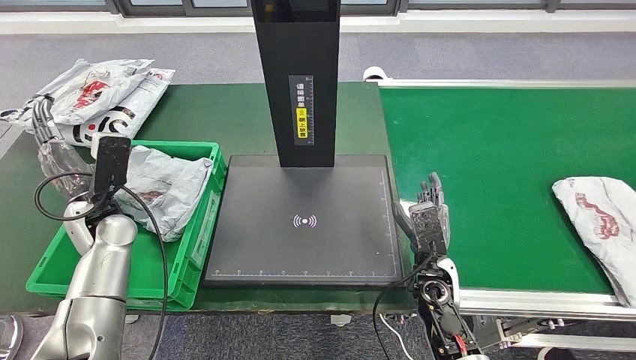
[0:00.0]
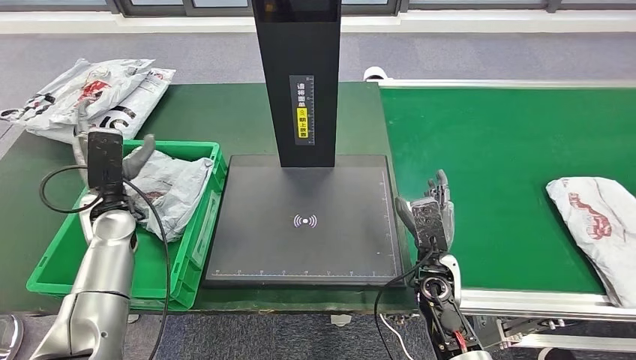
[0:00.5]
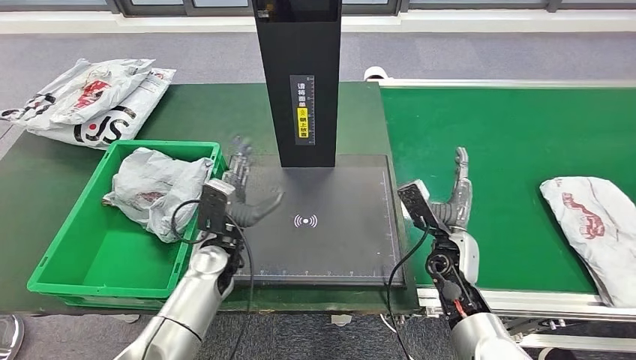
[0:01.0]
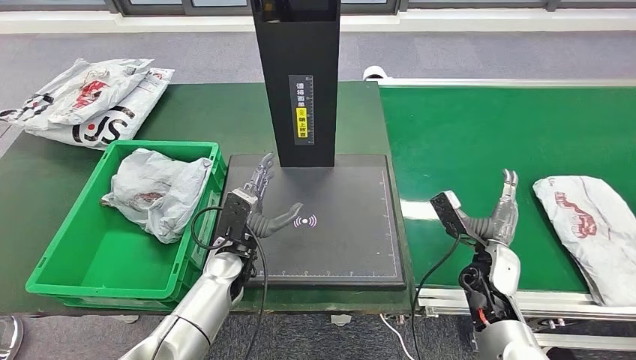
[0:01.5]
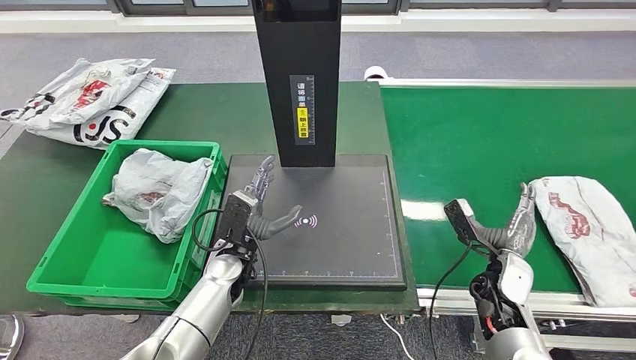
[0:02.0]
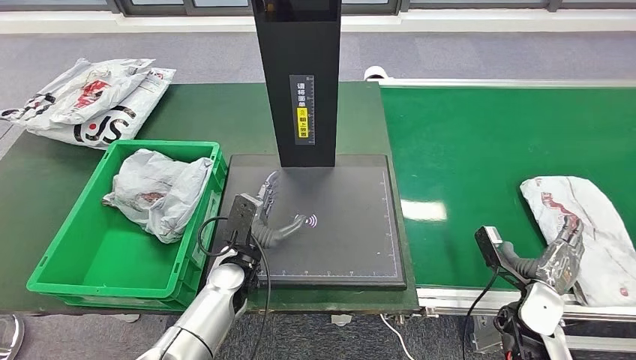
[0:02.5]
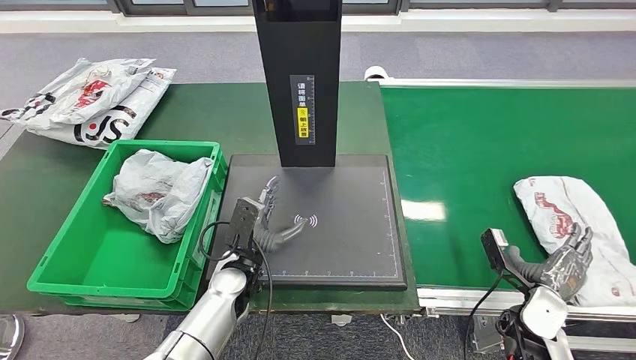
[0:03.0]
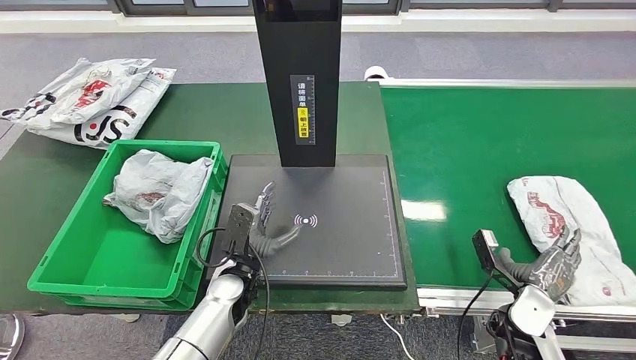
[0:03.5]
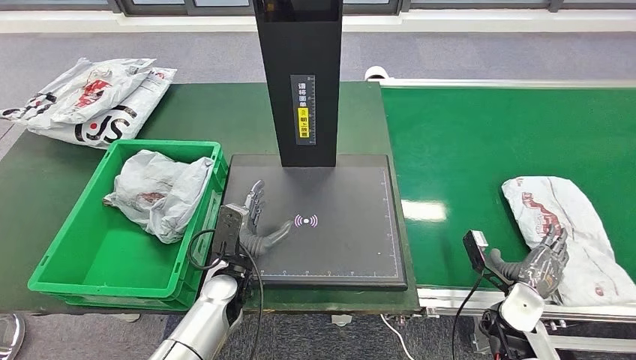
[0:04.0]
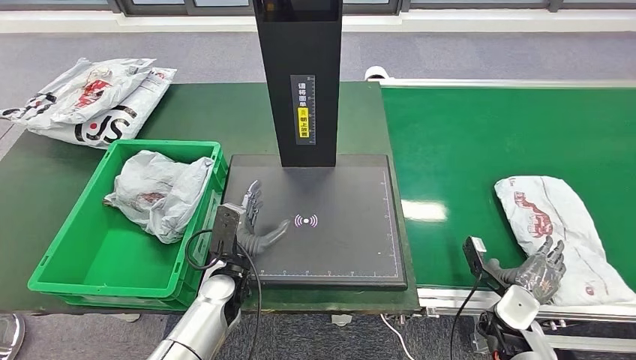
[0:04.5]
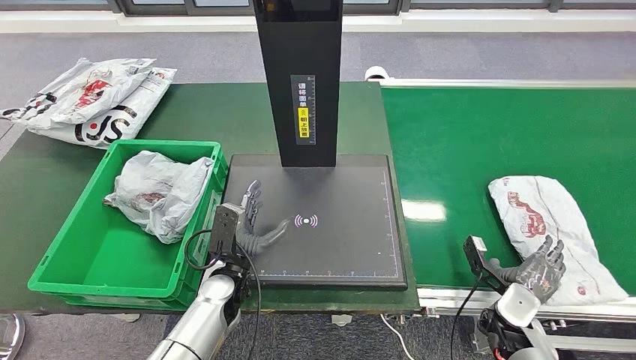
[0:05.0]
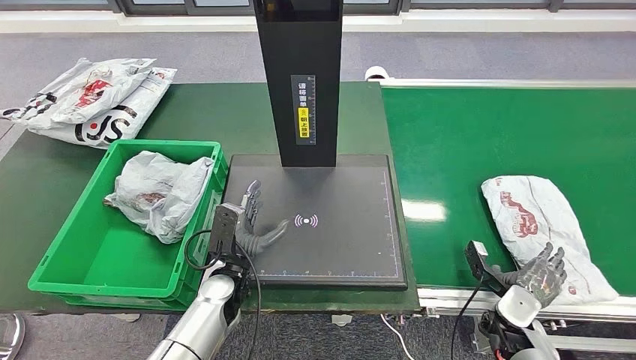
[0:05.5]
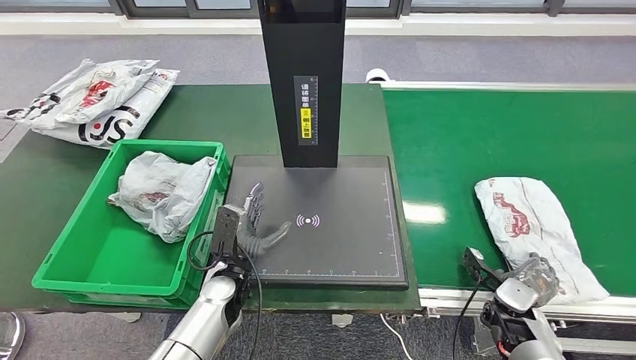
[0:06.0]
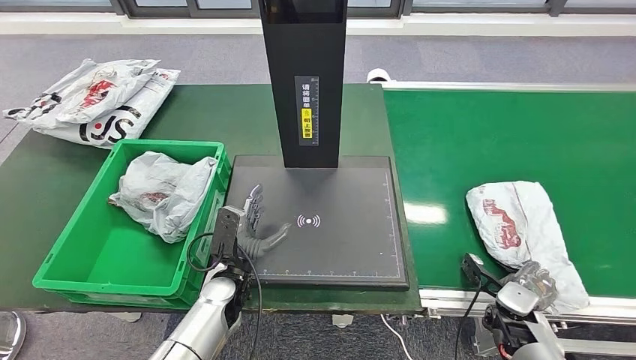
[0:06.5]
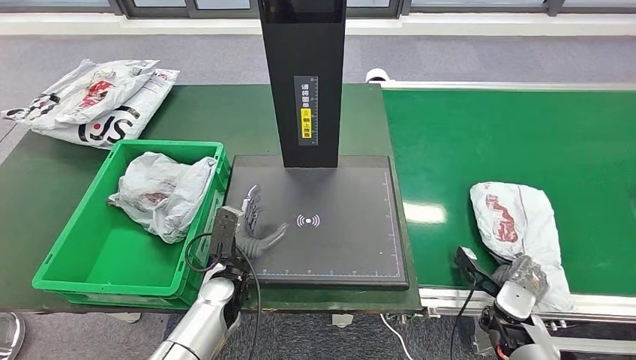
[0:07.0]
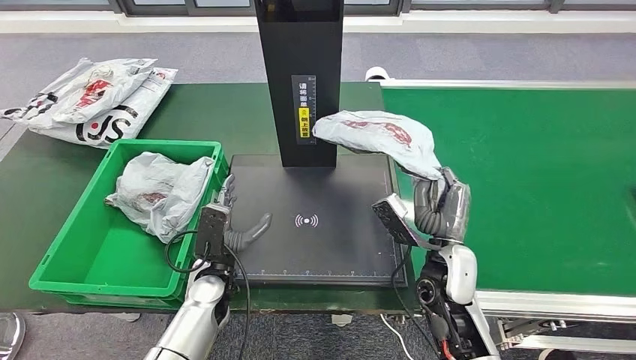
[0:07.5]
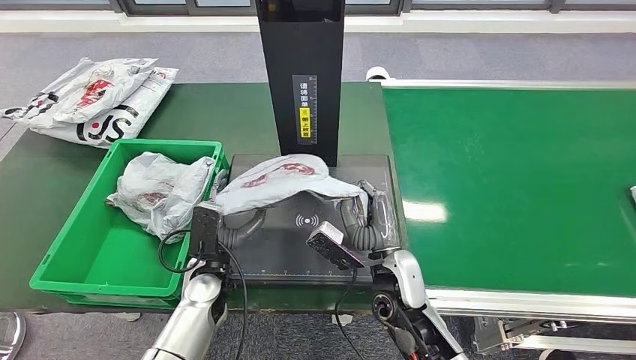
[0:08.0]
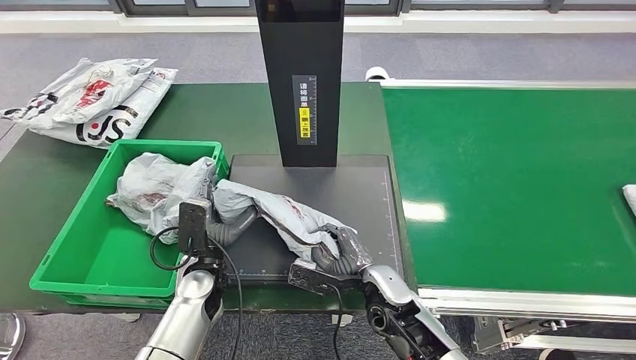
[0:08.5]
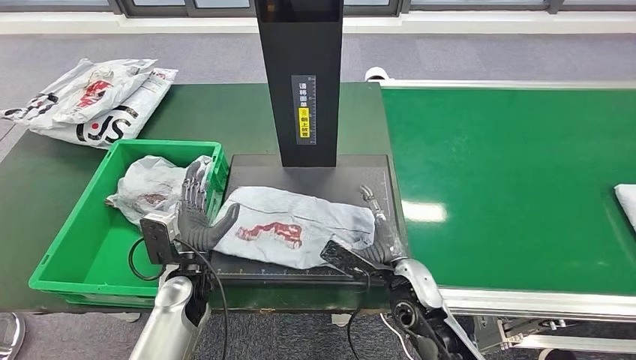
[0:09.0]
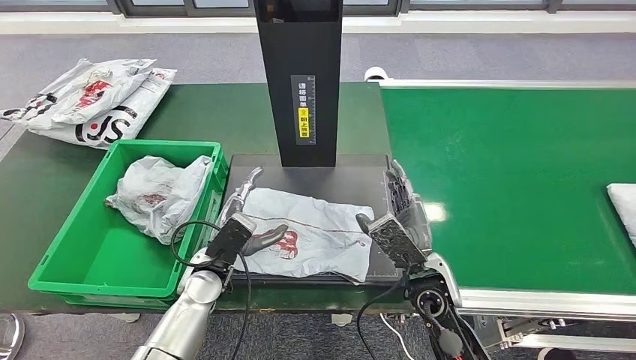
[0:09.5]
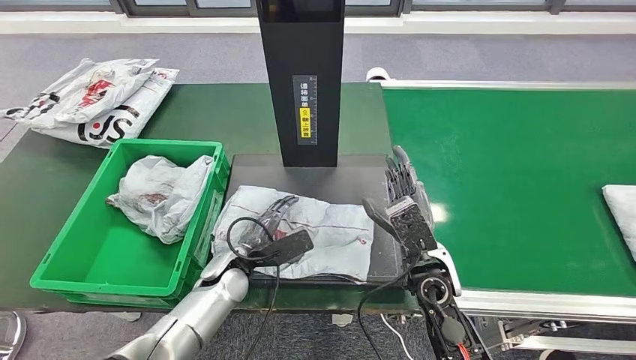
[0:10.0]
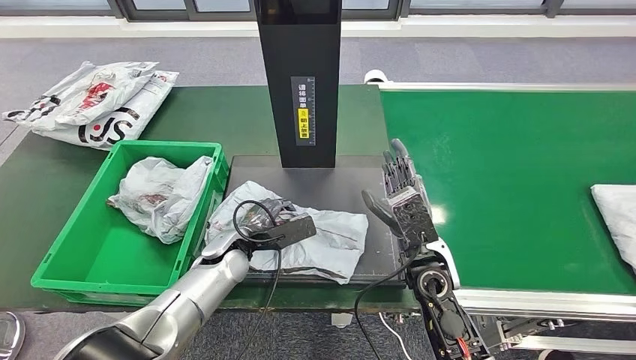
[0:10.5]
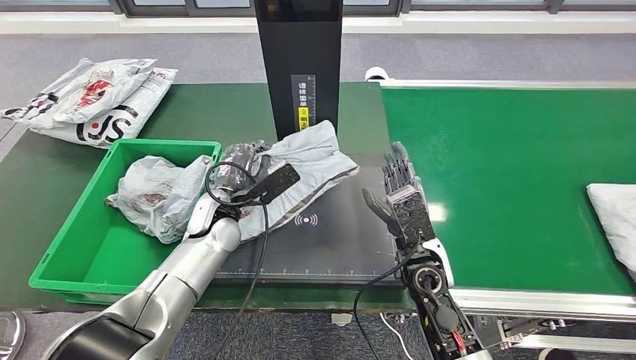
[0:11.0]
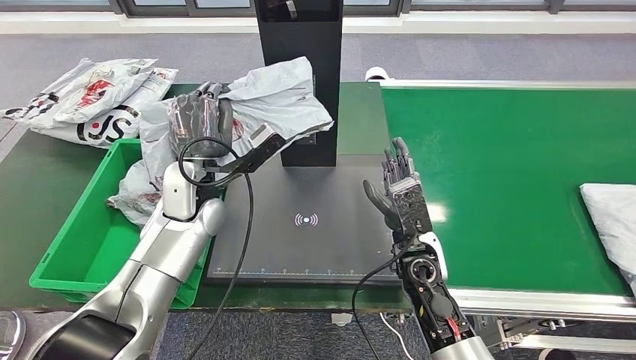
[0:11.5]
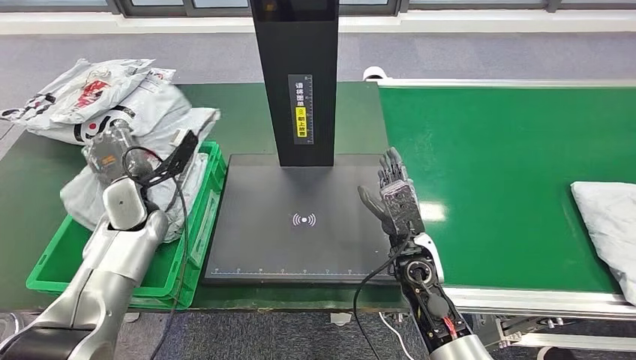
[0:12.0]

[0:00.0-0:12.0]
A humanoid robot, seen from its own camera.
Step, 0:00.5 to 0:07.5: Pick up the parcel from the conveyor belt.
Step, 0:08.0 to 0:08.5: Place the parcel onto the inbound machine.
Step, 0:09.5 to 0:11.5: Pick up the parcel from the inbound machine.
0:02.0 to 0:04.0: The right hand moves about 5 cm.
0:08.0 to 0:10.0: The right hand goes some 5 cm to the right.

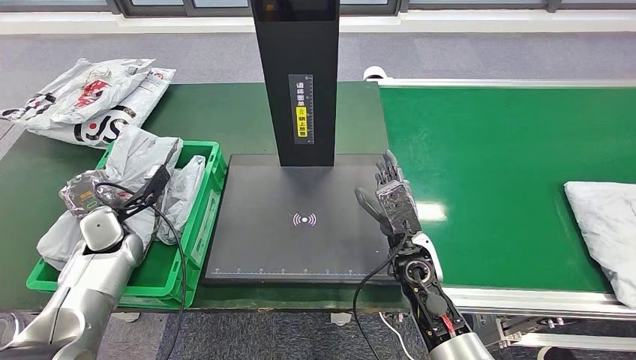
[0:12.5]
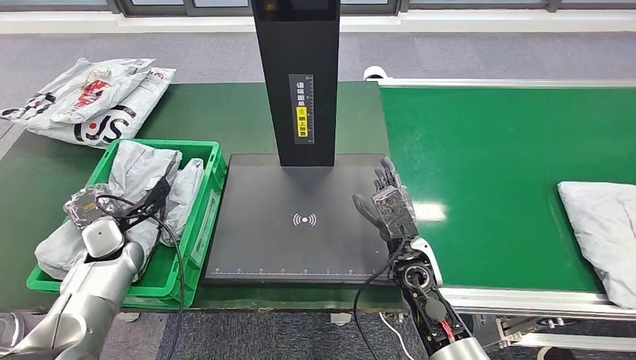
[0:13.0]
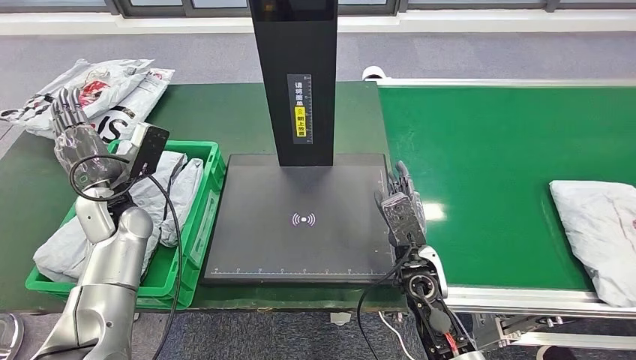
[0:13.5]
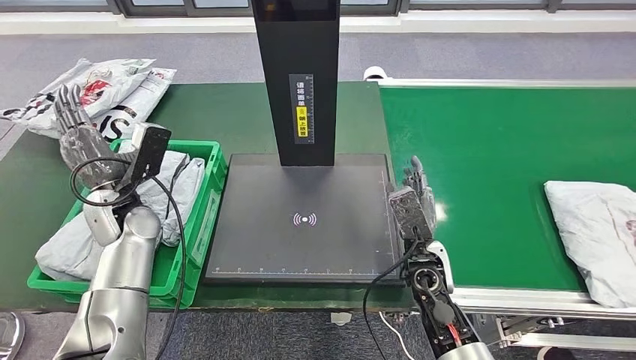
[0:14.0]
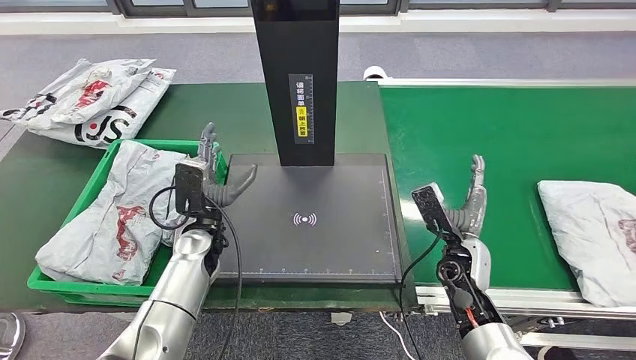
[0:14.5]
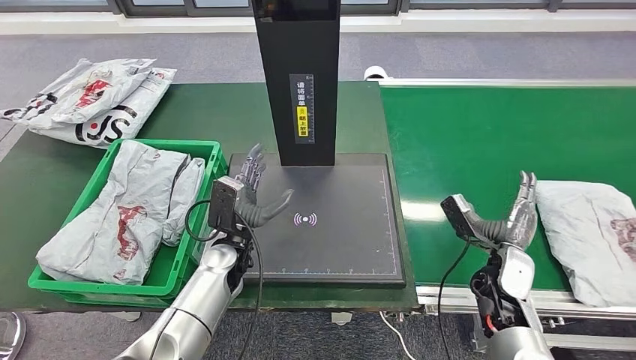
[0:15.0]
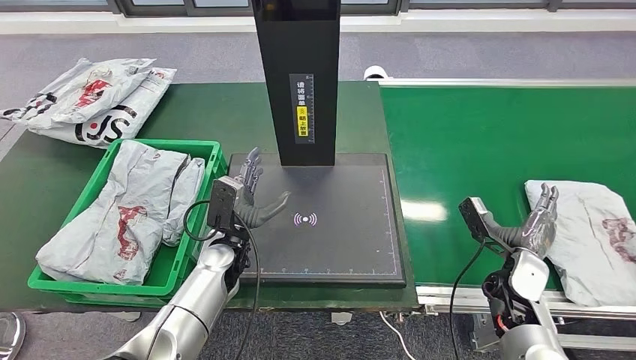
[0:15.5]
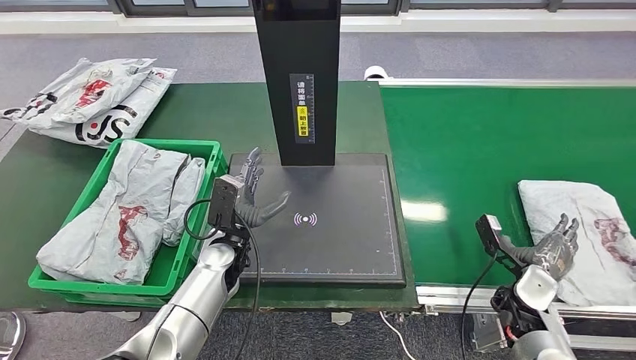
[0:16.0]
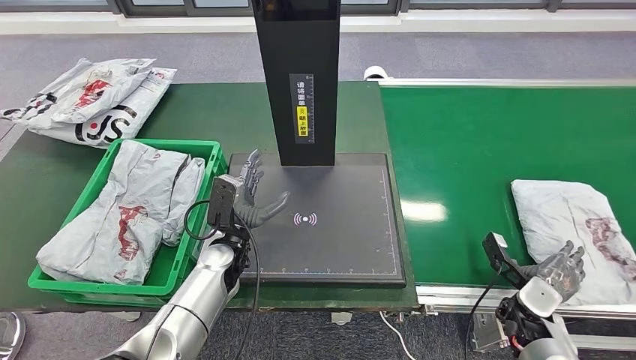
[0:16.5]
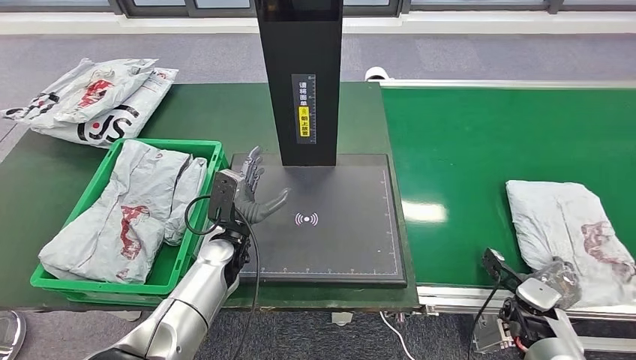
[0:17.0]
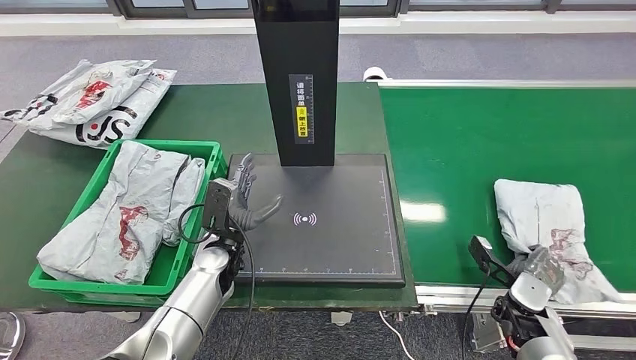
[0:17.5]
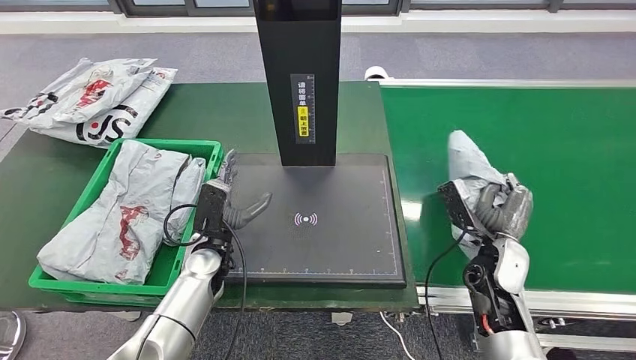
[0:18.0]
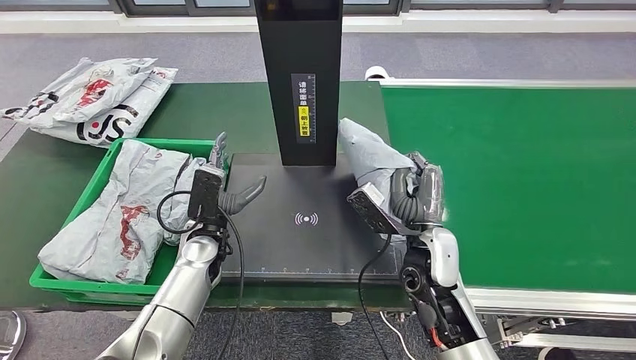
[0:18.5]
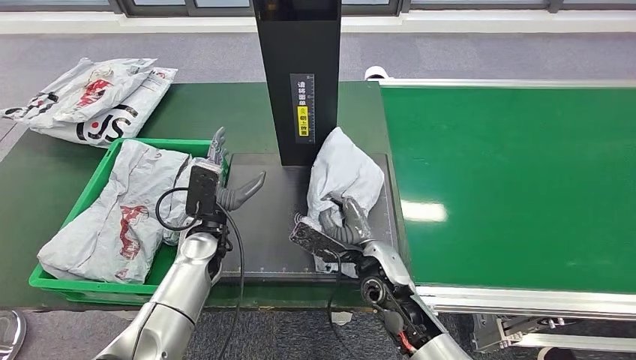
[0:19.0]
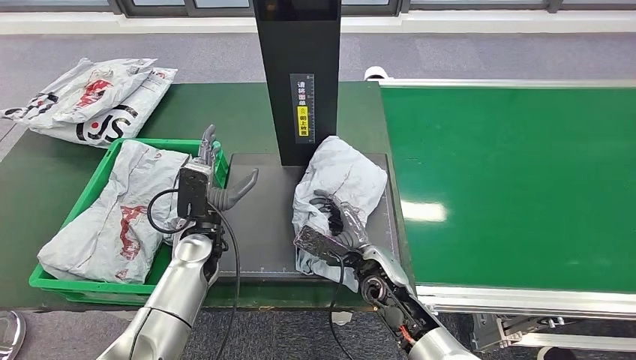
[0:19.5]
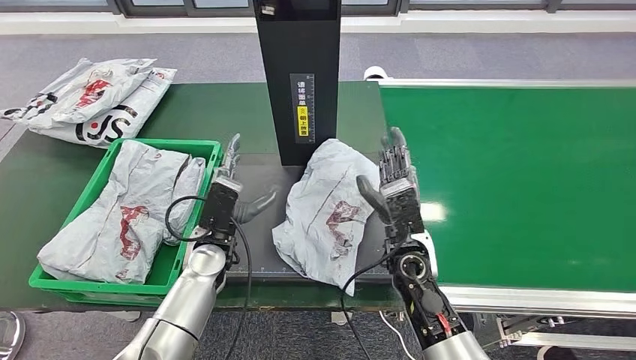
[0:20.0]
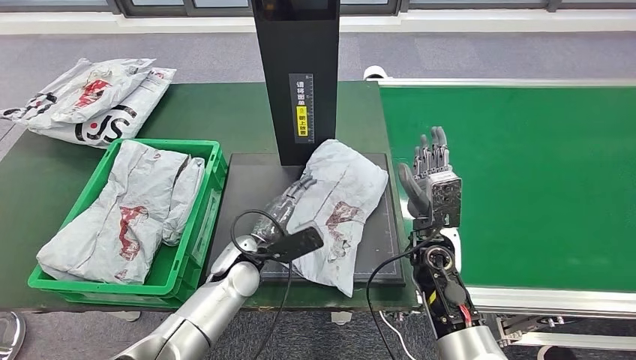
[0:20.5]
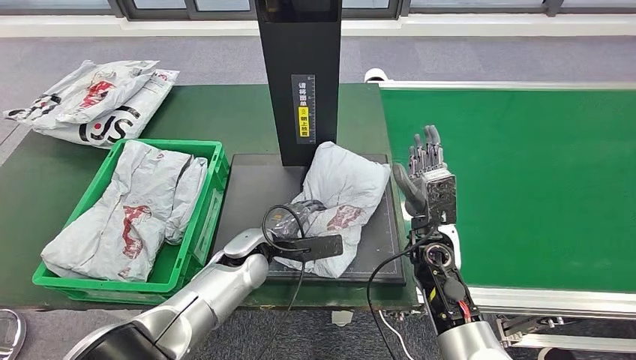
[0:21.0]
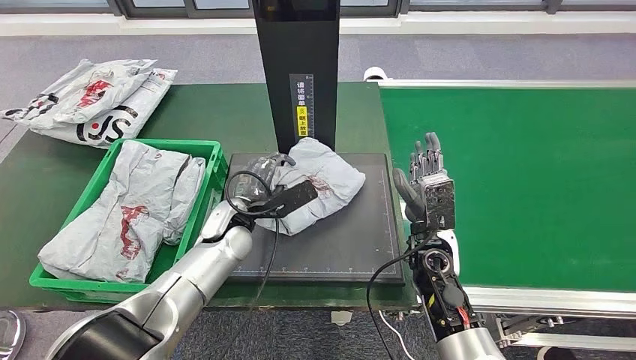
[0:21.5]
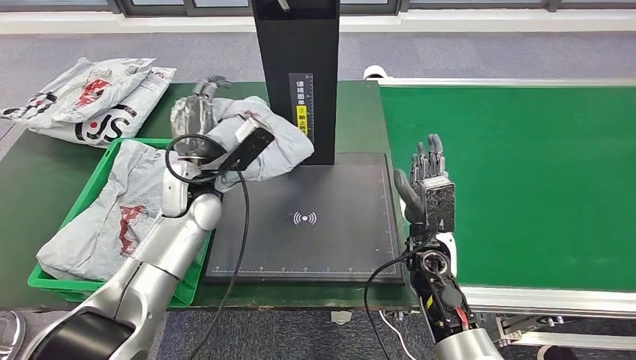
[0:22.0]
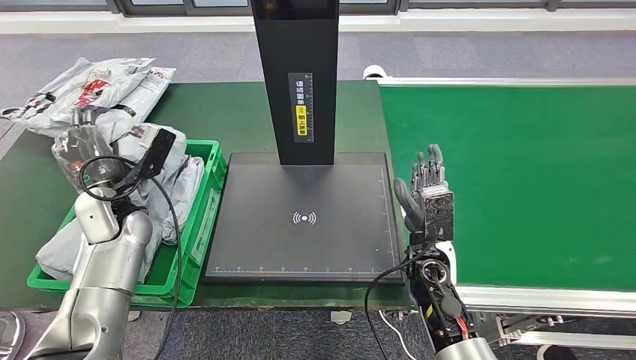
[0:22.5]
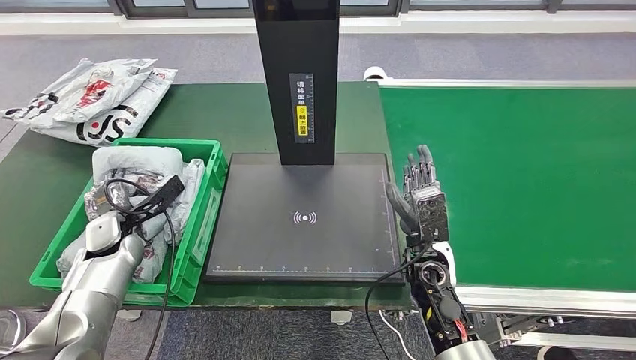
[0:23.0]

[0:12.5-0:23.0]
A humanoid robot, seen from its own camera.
Step, 0:12.5 to 0:14.5: Place the parcel into the delivery box.
Step, 0:15.0 to 0:19.0: Pick up the parcel from the conveyor belt.
Step, 0:19.5 to 0:21.0: Place the parcel onto the inbound machine.
Step, 0:21.5 to 0:22.0: Pick up the parcel from the inbound machine.
0:14.5 to 0:16.5: The left hand changes place by approximately 5 cm. The right hand shifts some 15 cm to the right, downward and backward.
